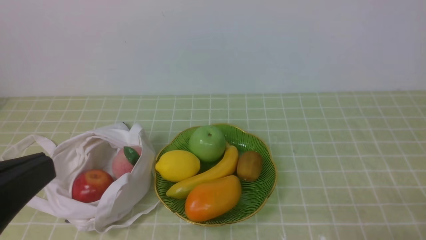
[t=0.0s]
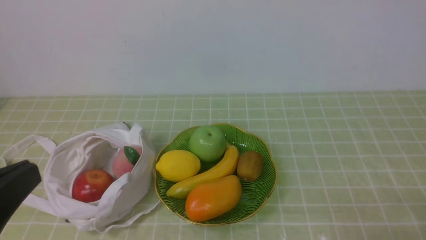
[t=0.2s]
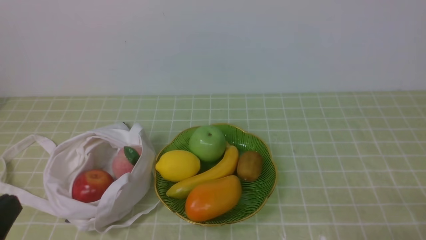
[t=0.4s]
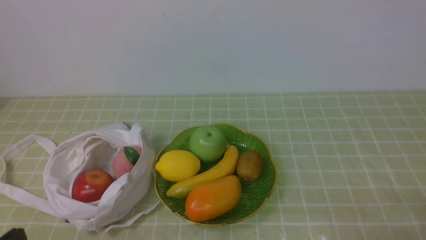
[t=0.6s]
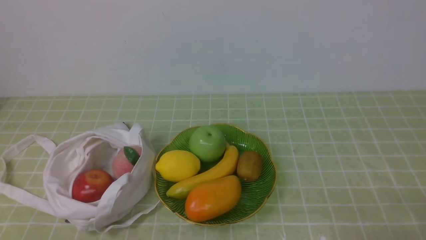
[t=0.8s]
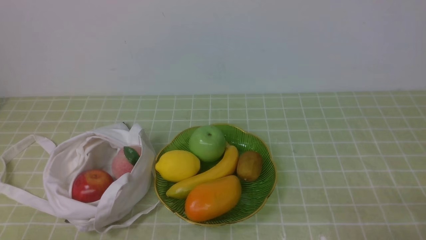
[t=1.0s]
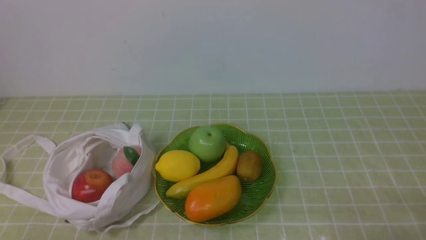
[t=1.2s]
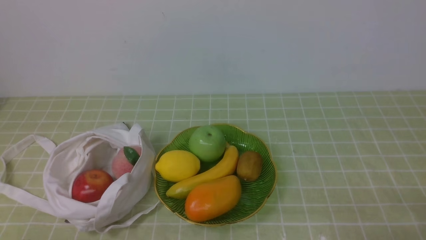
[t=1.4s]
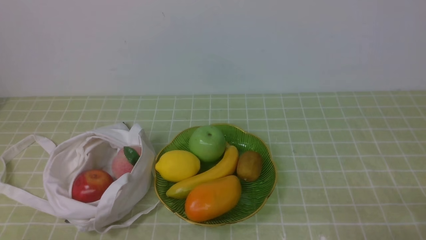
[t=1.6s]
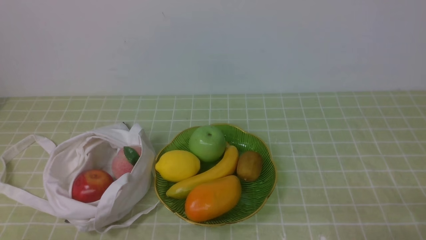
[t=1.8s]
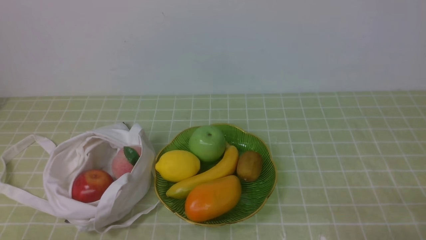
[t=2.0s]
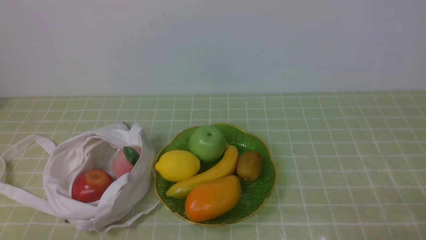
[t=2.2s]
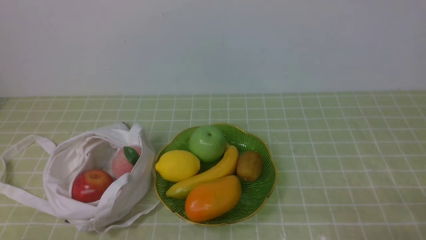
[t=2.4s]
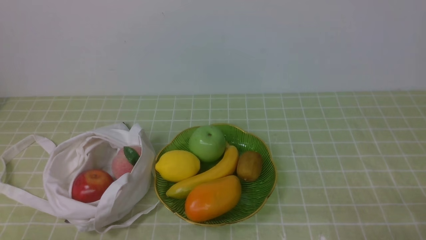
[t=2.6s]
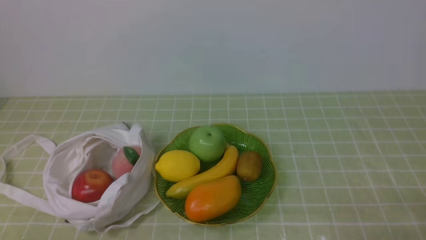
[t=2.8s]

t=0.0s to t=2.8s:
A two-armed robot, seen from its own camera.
t=0.0s to t=1.4s: The left gripper travels downward by approximately 20 cm.
t=1.4s to t=2.8s: Both grippers stay about where they are.

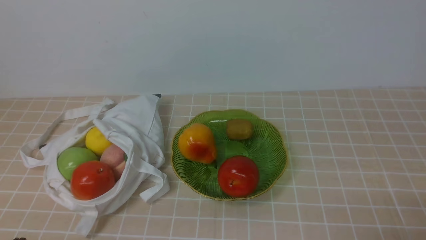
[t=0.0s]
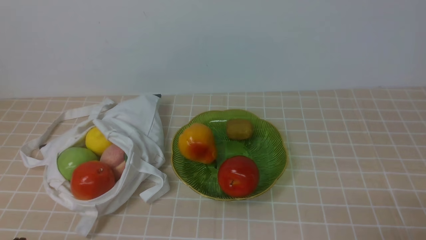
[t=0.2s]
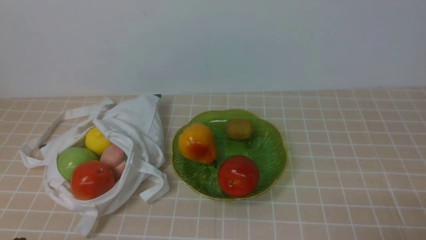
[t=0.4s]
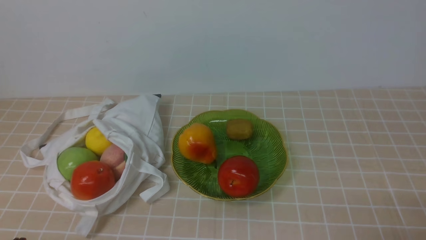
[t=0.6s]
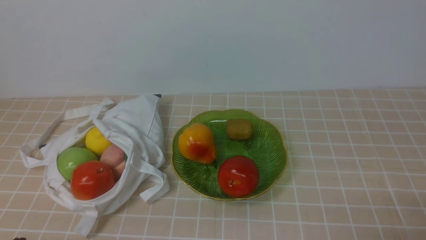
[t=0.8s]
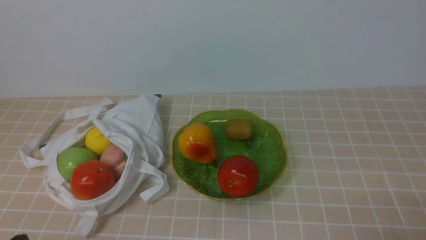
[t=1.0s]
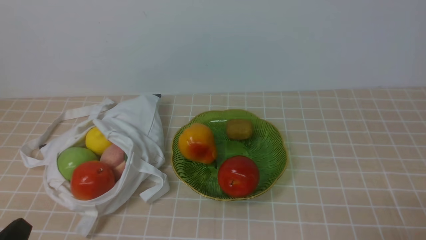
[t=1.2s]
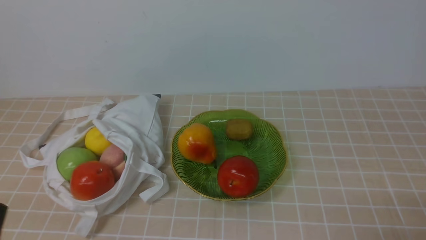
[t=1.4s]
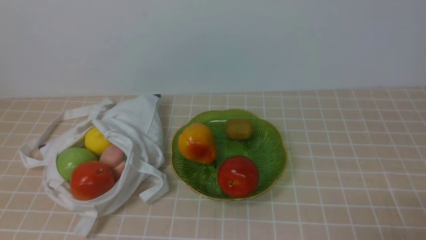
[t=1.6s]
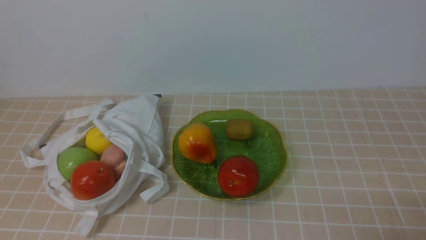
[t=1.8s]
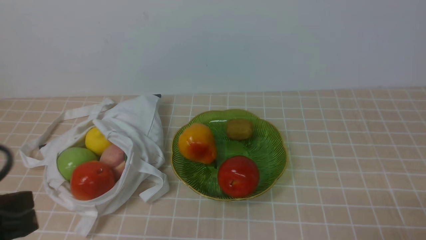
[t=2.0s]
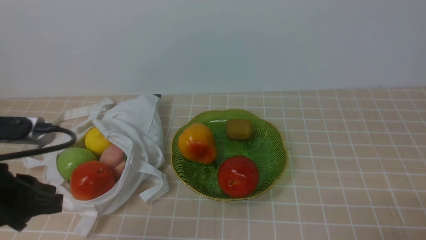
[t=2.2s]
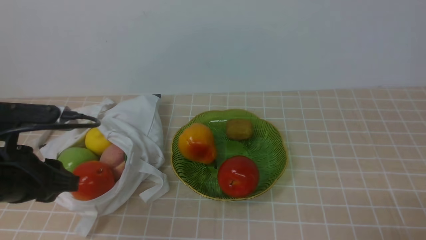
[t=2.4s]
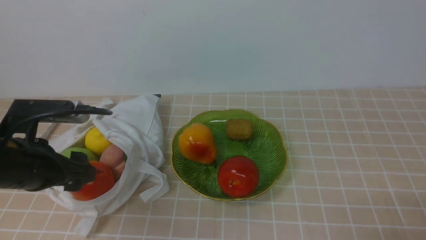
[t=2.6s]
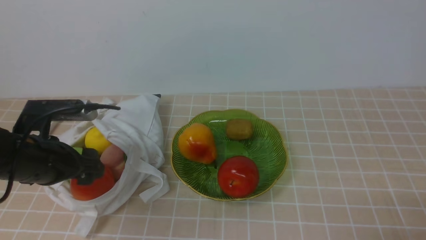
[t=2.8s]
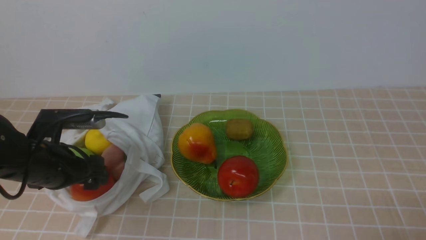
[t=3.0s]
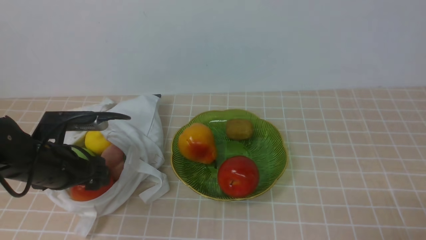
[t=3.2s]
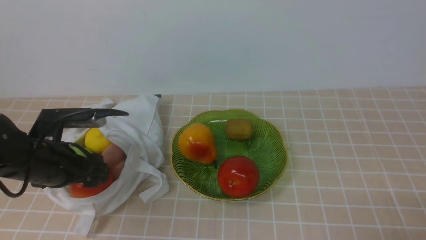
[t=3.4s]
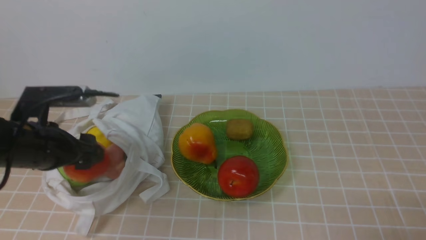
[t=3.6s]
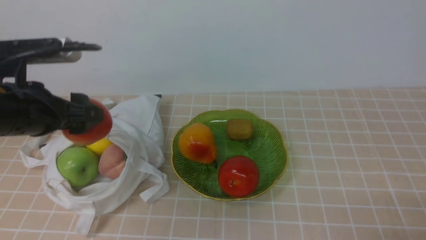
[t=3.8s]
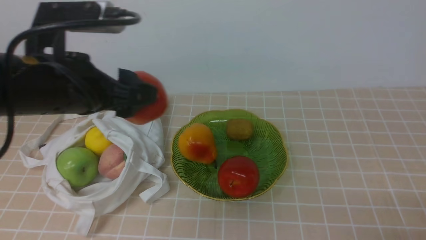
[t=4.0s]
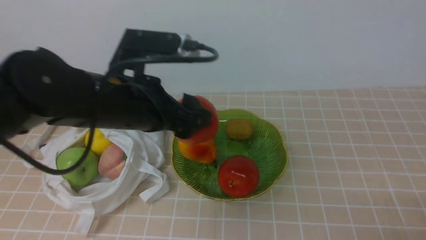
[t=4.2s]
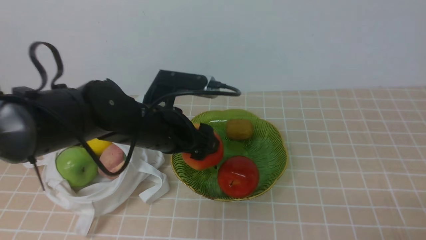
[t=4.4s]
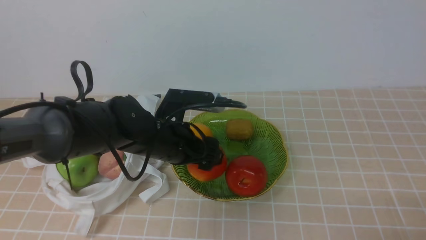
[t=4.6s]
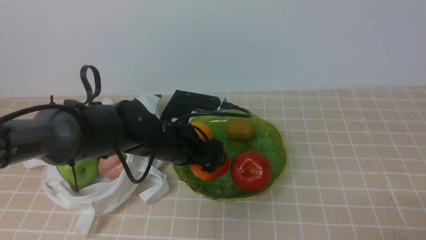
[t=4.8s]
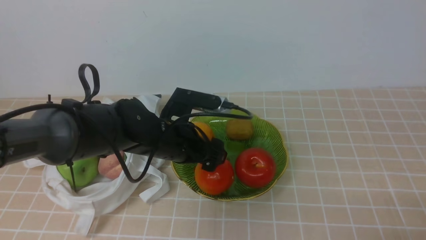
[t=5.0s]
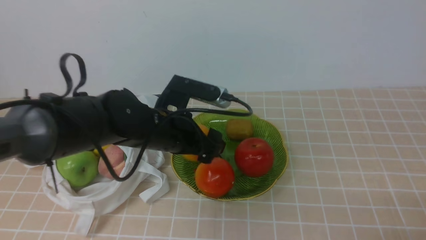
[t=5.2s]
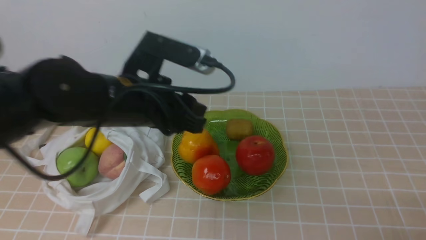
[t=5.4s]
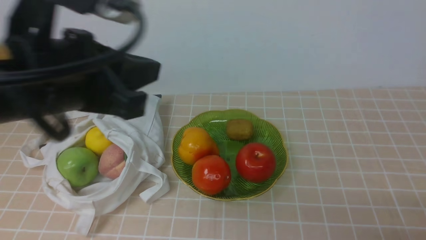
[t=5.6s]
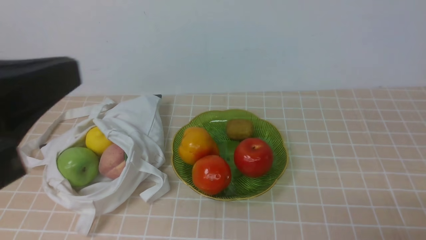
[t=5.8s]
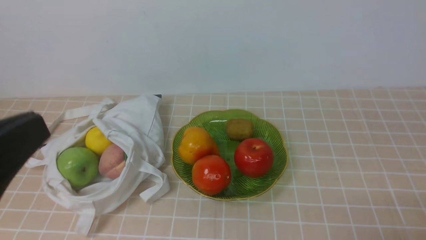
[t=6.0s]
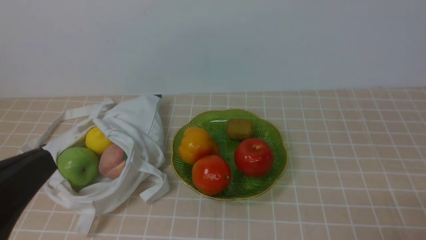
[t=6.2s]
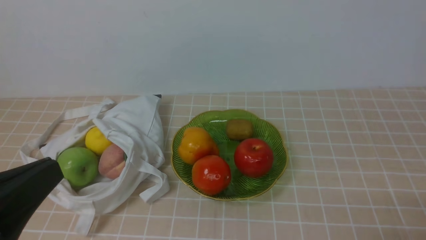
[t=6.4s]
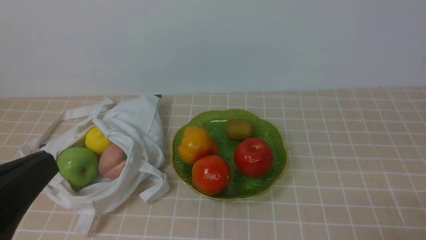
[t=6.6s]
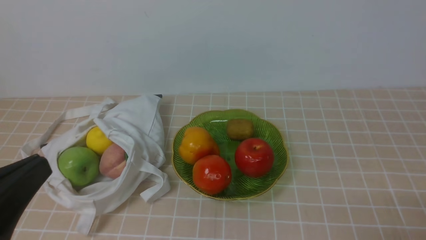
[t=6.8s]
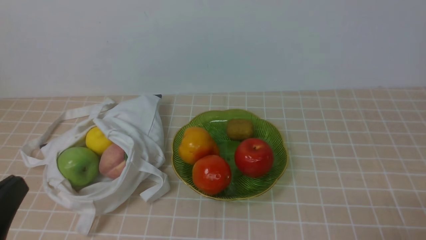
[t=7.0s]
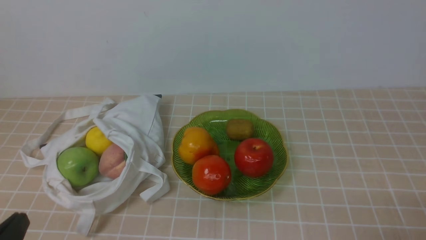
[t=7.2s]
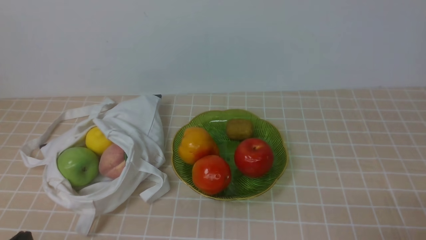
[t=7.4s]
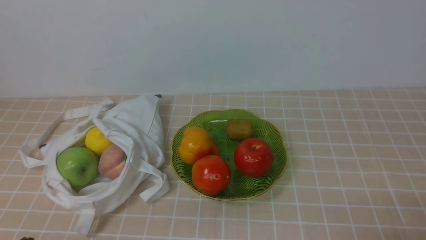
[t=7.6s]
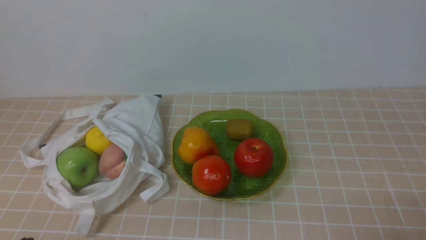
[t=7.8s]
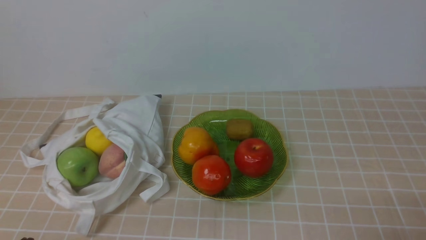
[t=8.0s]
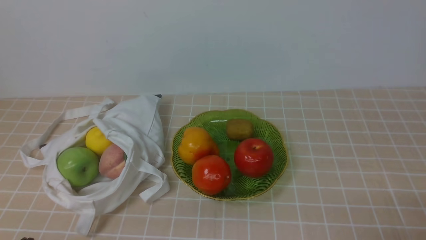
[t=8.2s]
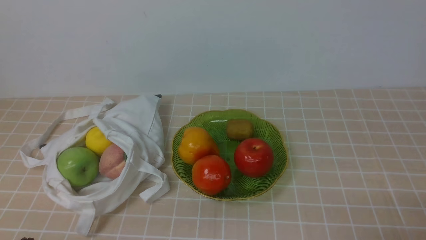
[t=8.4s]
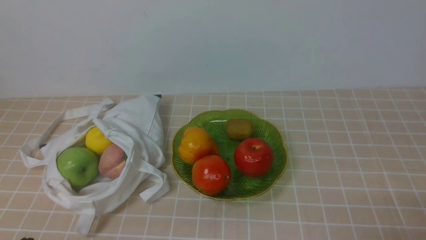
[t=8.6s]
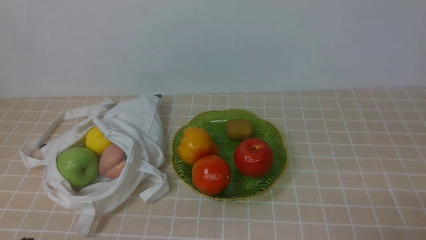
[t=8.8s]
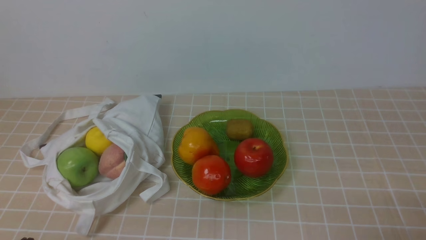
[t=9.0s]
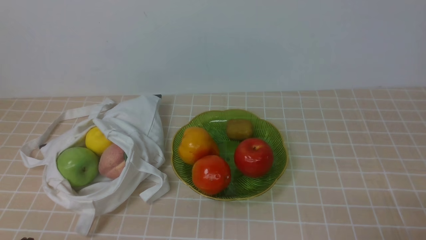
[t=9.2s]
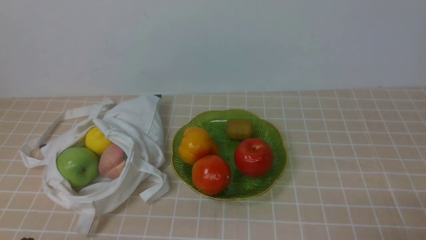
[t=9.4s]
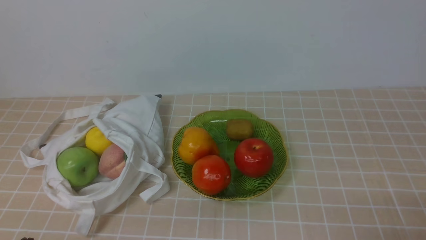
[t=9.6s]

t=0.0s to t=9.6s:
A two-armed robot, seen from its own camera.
Step, t=3.6s to t=5.0s: use the right arm to put the apple into the empty plate on the left.
t=1.6s to t=3.2s: The left gripper heads forward, covering some 20 cm, and opens its fingers.
t=3.2s to t=4.8s: The left gripper is displaced to the right by about 15 cm.
t=4.8s to t=6.4s: The left gripper is displaced backward, to the left and upward by some 30 cm, and closes its fingers.
t=6.4s to t=8.0s: The left gripper is displaced downward by about 15 cm.
t=8.0s to t=9.6s: Both grippers stay put.

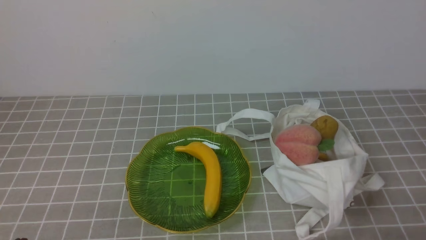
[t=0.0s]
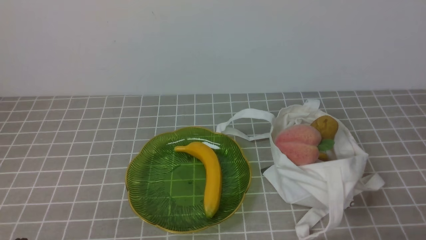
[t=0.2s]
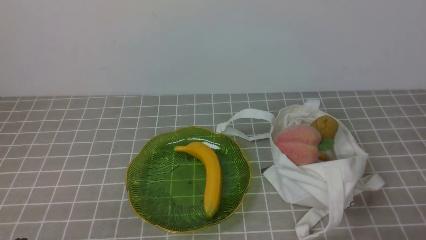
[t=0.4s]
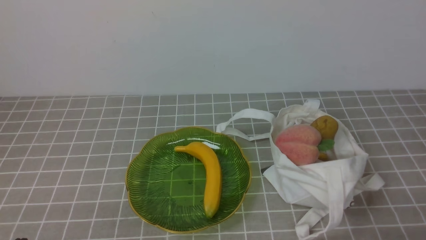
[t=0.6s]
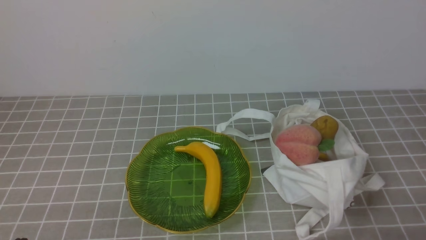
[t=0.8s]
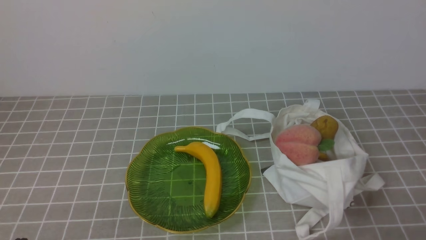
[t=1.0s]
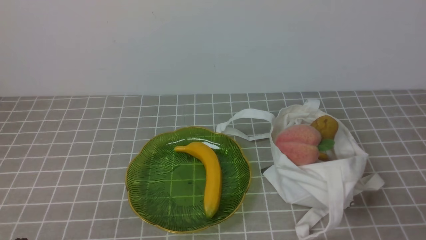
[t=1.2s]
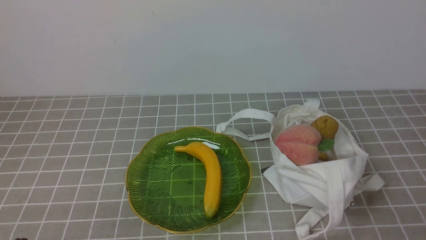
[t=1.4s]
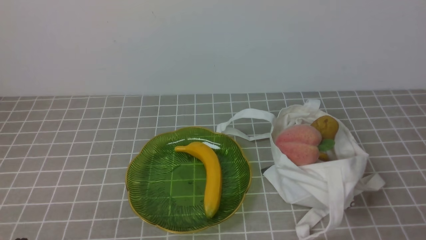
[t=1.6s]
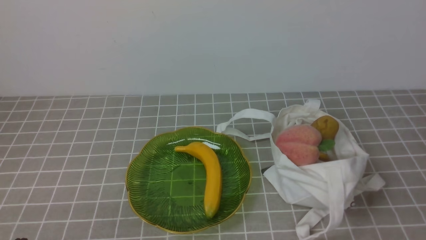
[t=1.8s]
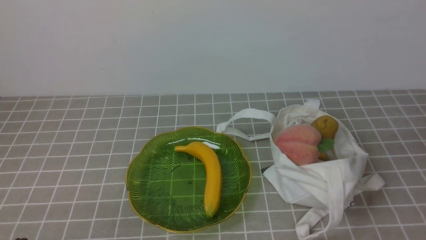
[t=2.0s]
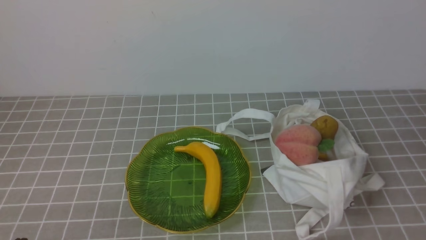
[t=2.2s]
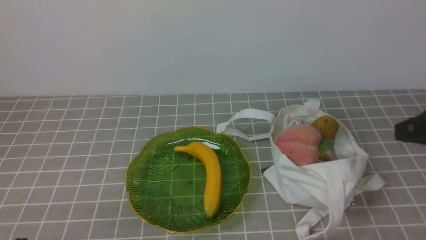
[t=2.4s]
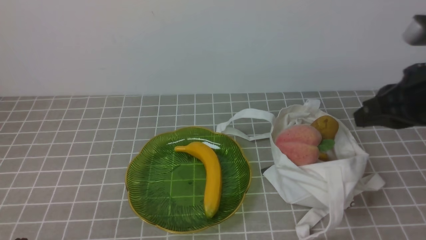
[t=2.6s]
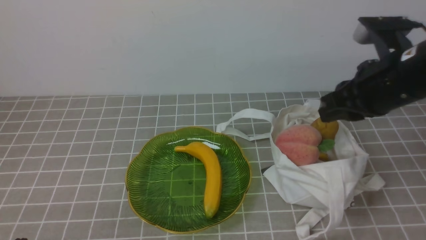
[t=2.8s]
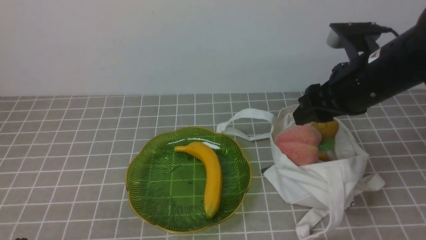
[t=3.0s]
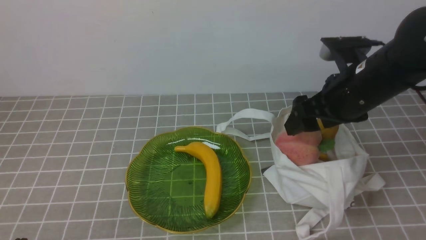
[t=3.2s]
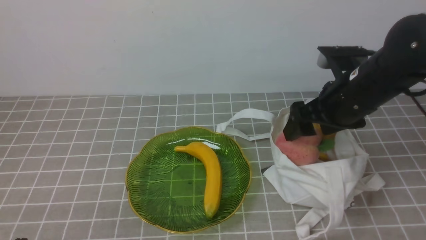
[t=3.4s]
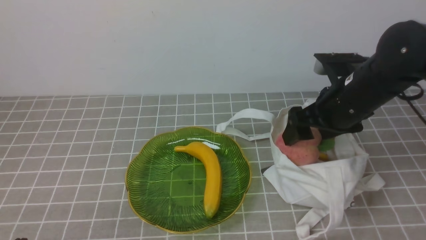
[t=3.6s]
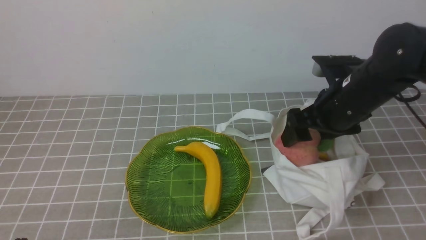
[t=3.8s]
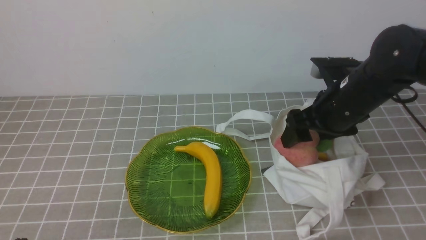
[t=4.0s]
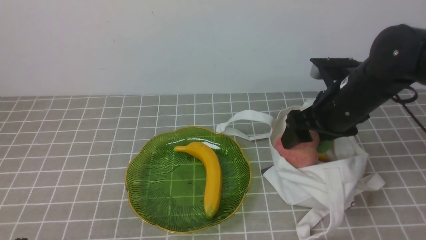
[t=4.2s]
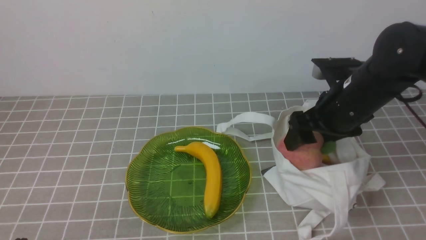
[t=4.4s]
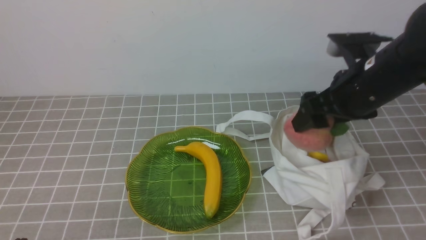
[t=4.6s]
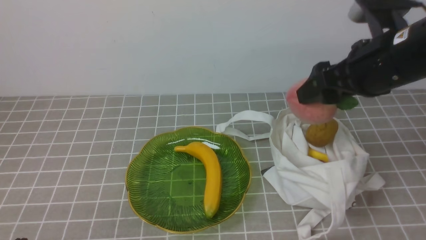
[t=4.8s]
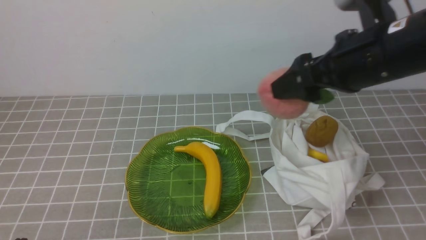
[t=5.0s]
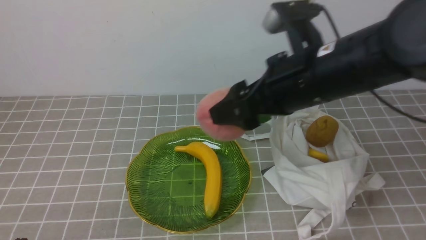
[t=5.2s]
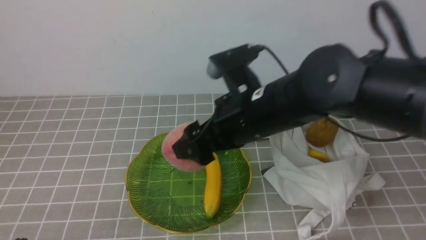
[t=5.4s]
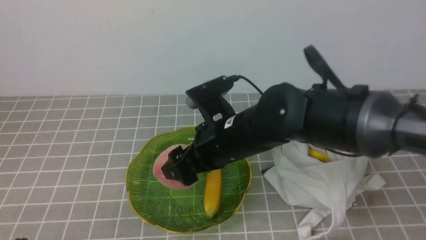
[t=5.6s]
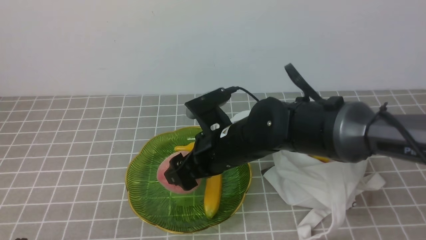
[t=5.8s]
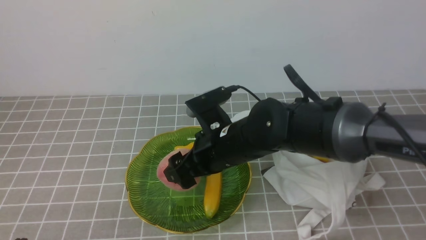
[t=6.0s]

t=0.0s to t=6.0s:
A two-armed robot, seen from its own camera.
Step, t=0.0s to t=4.4s: use the right arm to grab a peach from the bag.
t=1.6s to t=3.0s: The right gripper heads forward and to the left, covering some 30 cm, and opens its fingers.
t=3.0s to t=4.4s: There are only small adjustments of the grippers.
t=4.4s to t=6.0s: The right gripper travels to the left by roughly 20 cm.
